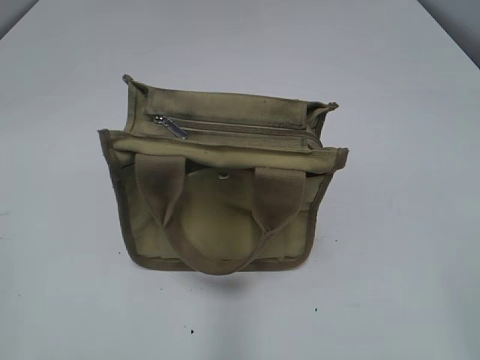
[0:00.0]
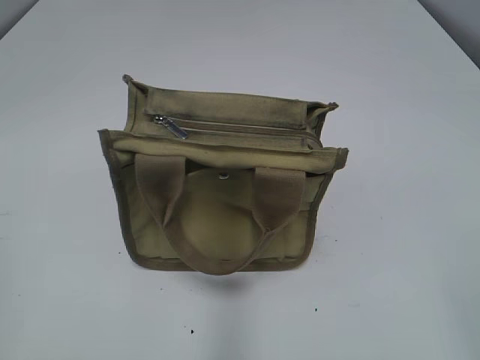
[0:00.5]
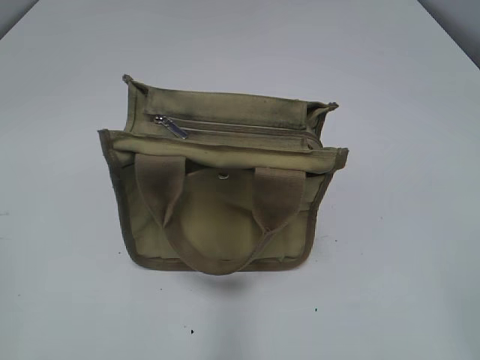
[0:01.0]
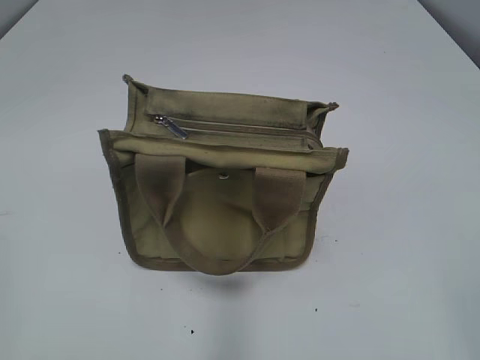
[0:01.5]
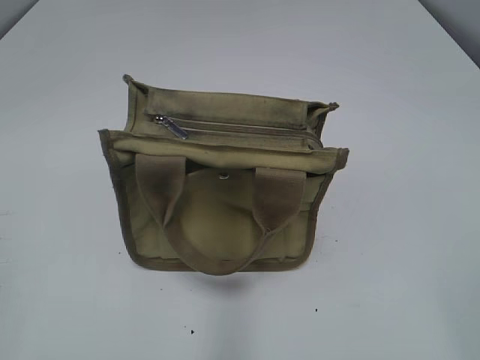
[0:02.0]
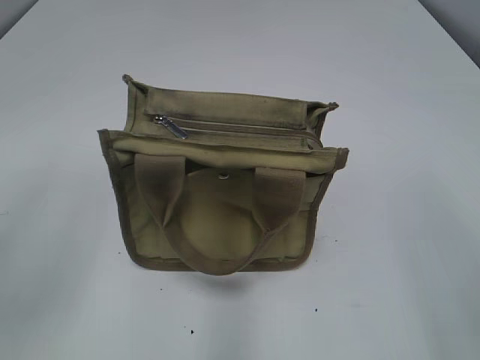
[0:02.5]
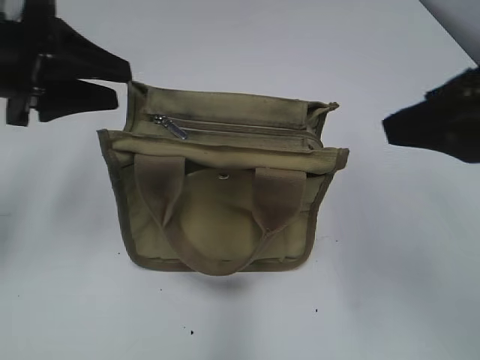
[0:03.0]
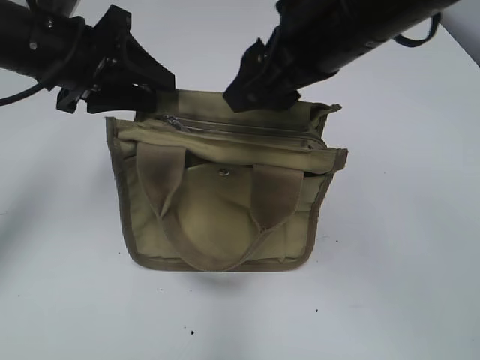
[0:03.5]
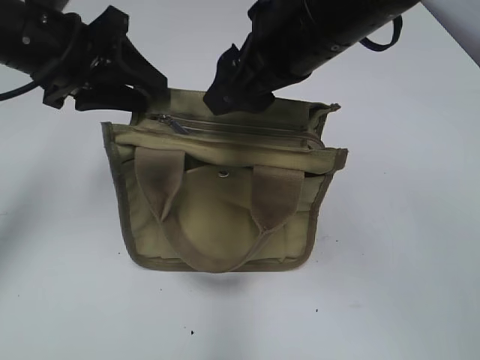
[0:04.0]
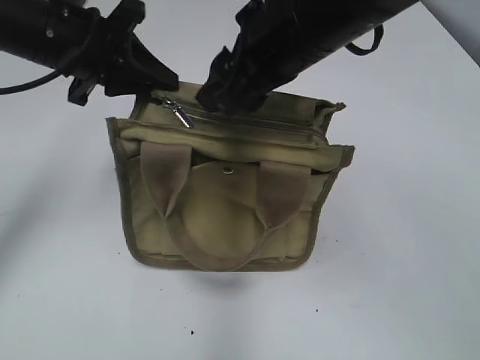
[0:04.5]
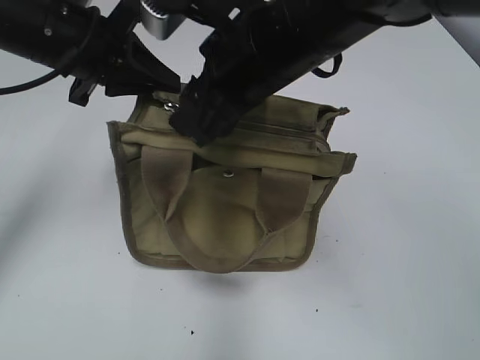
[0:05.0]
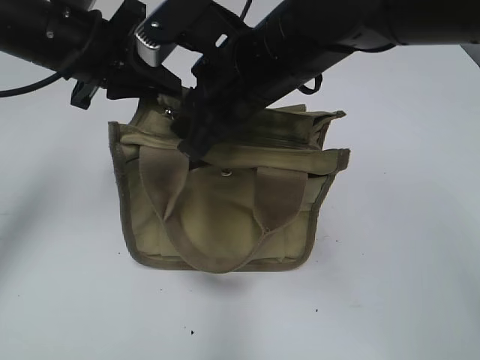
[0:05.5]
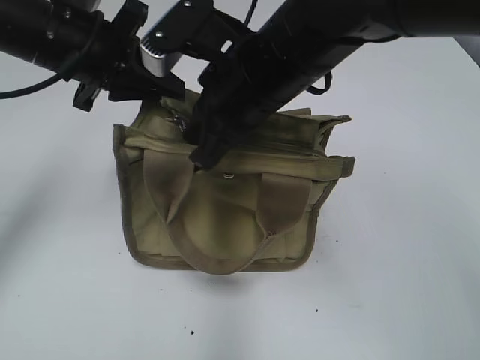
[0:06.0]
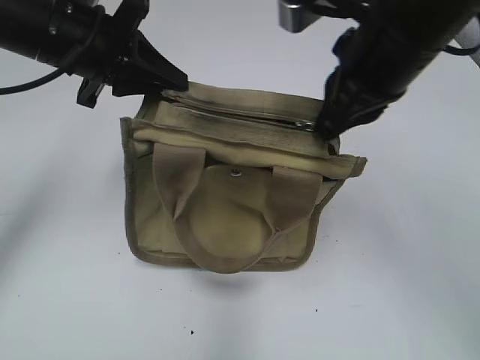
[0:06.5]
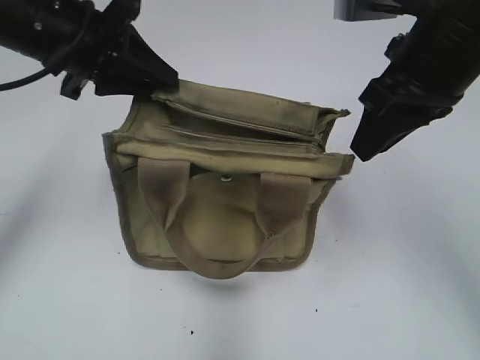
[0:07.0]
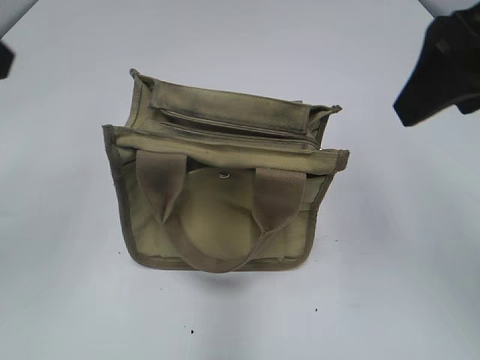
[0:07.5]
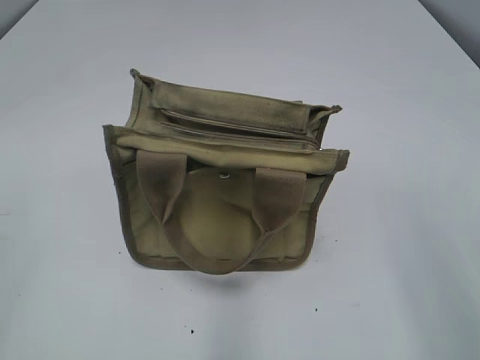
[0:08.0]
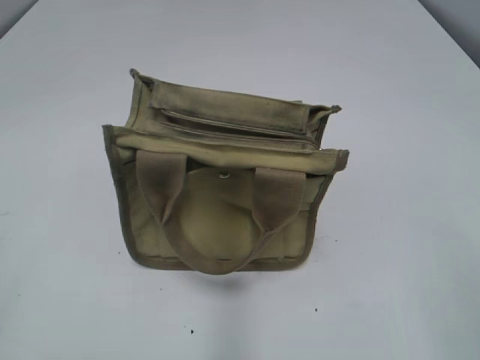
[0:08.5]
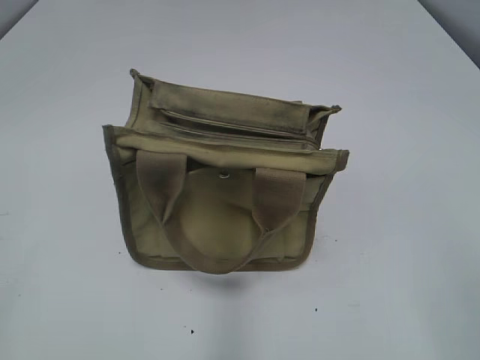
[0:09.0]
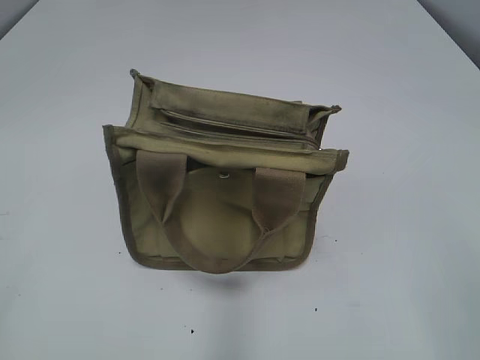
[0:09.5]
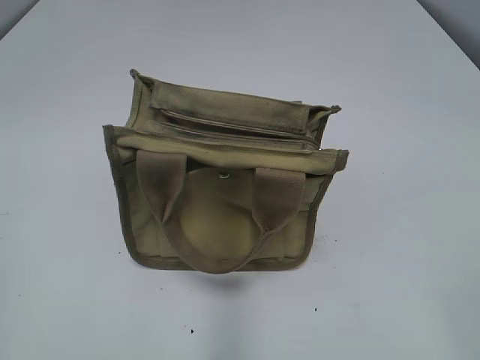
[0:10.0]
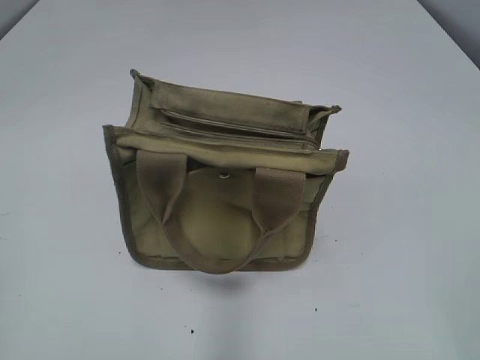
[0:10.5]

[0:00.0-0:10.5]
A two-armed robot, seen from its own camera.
Step, 0:00.0 to 0:06.5: Pull open the zipper with your right hand.
0:02.0 to 0:04.0: The right gripper travels forward and to the left by roughly 35 cm, while the left gripper moves forward and to the right, roughly 35 cm.
0:04.0 to 0:06.5: The right gripper travels to the right by roughly 5 cm, and closes up, while the left gripper closes.
0:06.5 to 0:08.5: The right gripper travels backward and to the right by roughly 30 cm, and opens up. The left gripper goes about 40 cm backward and to the left, and opens up.

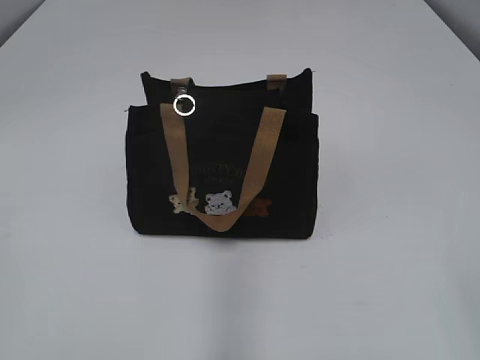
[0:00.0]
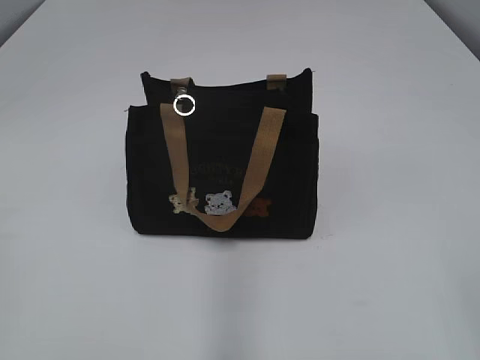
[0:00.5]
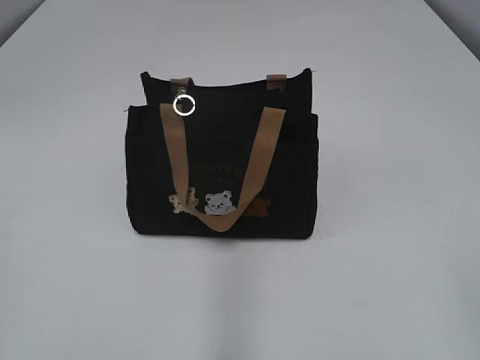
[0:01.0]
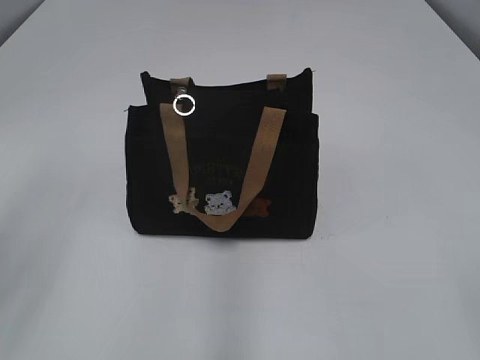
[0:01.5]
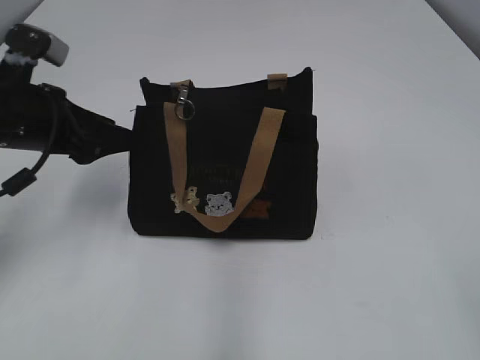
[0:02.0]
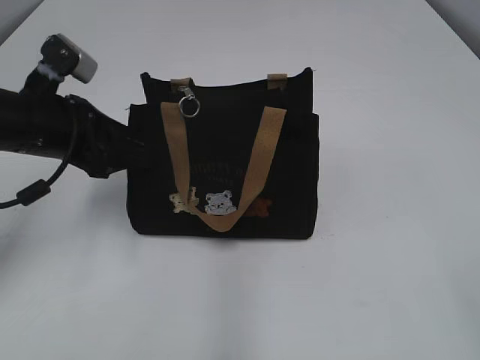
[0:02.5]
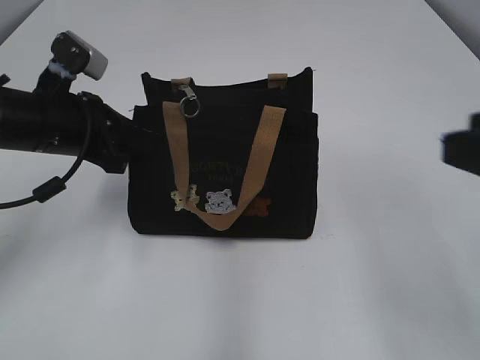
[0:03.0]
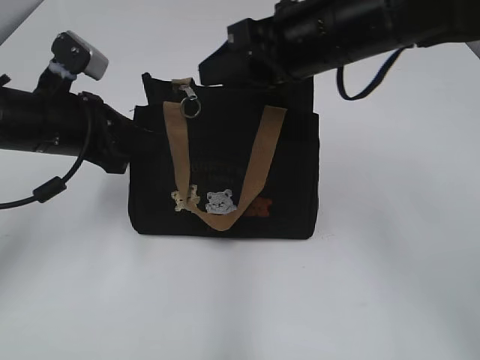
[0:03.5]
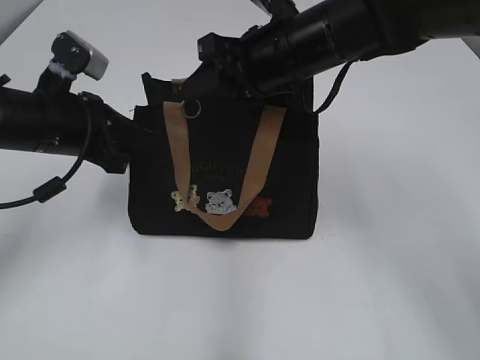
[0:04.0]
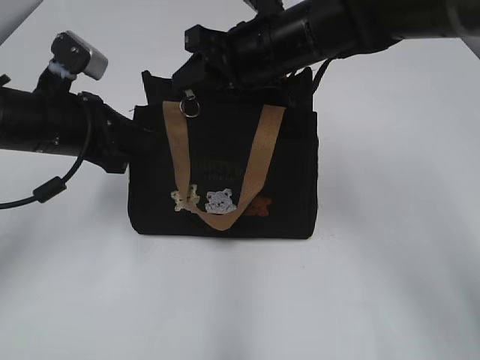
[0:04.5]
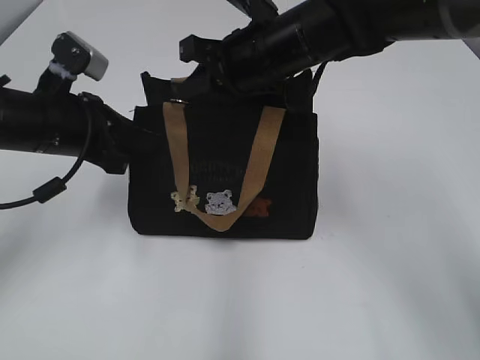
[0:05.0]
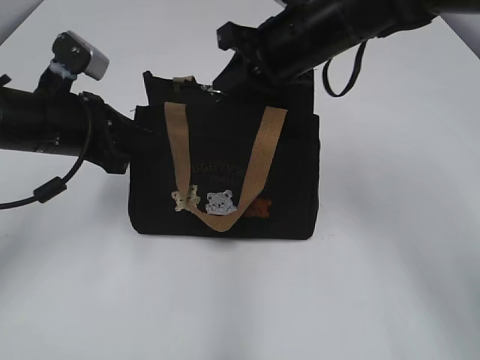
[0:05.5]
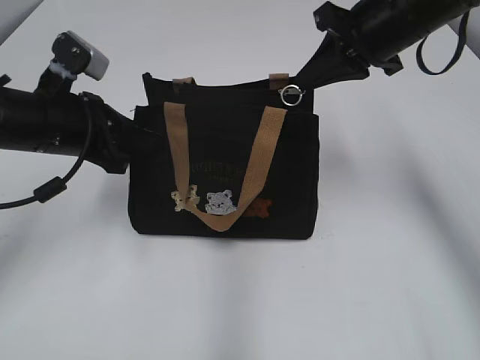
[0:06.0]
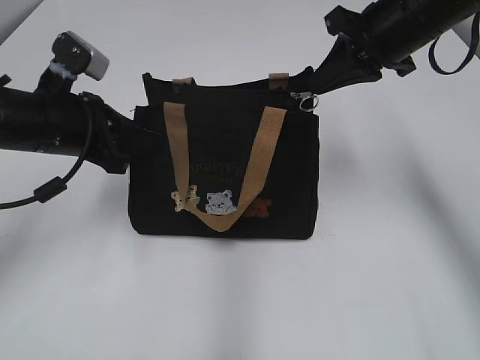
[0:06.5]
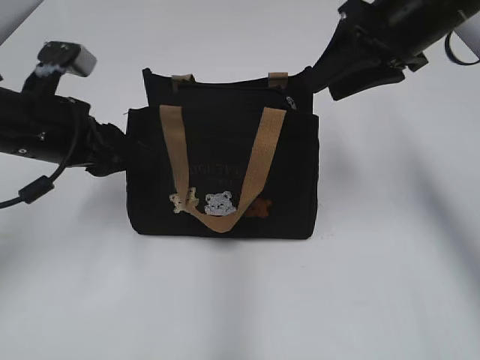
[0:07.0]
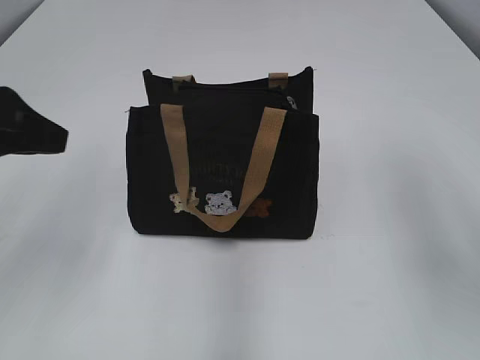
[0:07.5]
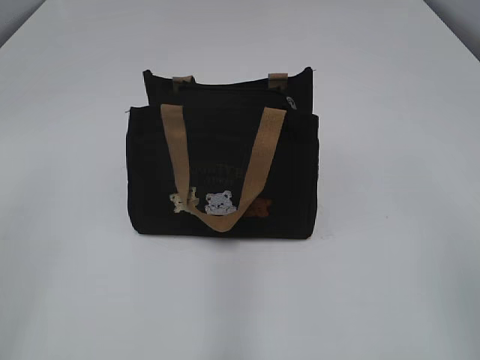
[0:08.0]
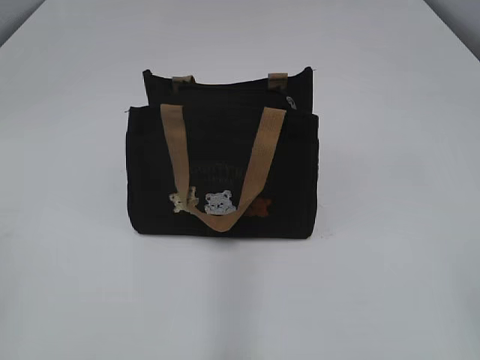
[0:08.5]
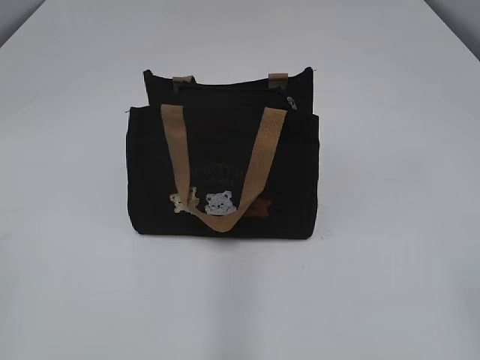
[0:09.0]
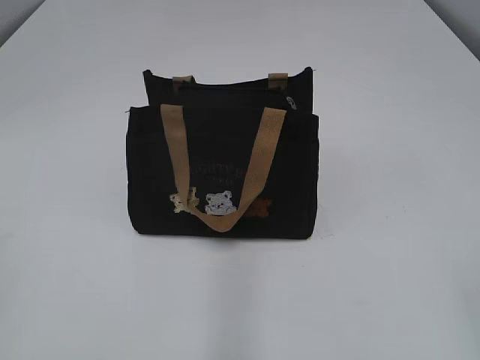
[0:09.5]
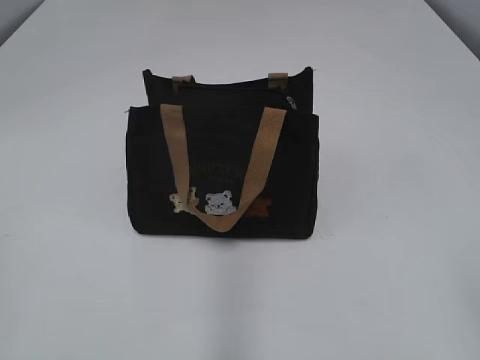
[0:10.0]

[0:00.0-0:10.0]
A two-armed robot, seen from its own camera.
Step, 0:00.0 to 0:06.5: Pull open the zipper with your right hand.
0:02.0 to 0:04.0: The right gripper moves forward and to the left, roughly 40 cm. The left gripper moves some 5 cm, and closes up.
0:04.0 to 0:06.0: The right gripper moves to the right, some 10 cm, and closes.
0:06.0 to 0:08.0: The right gripper heads backward, covering some 30 cm, and opens its fingers, while the left gripper moves backward and upward, roughly 25 cm, and opens up.

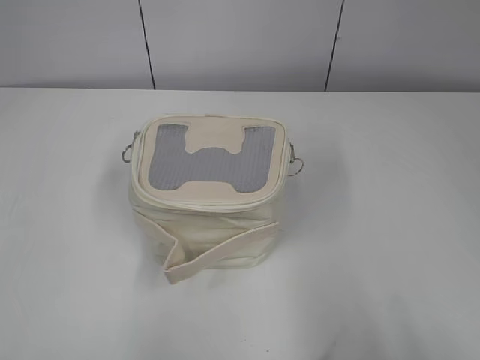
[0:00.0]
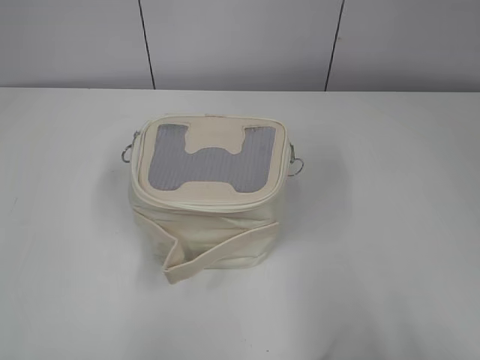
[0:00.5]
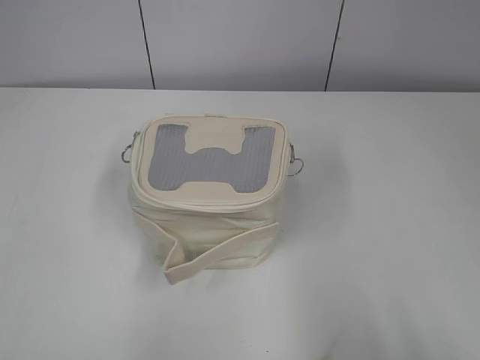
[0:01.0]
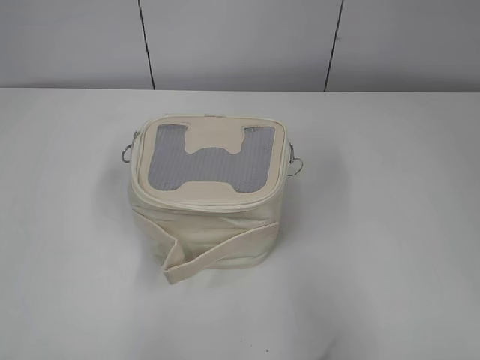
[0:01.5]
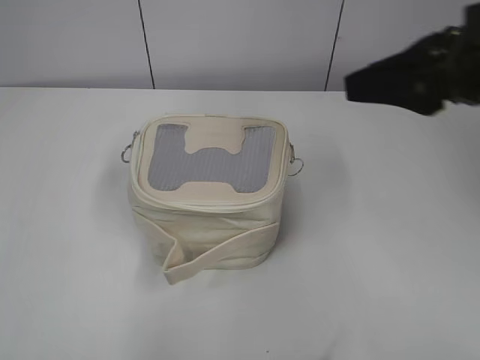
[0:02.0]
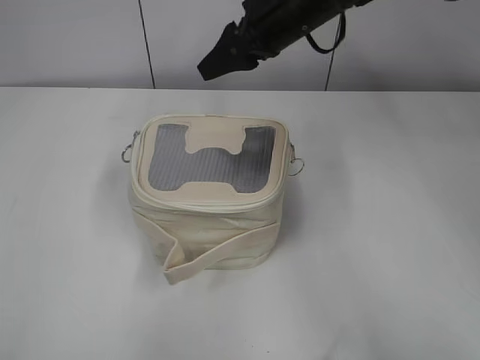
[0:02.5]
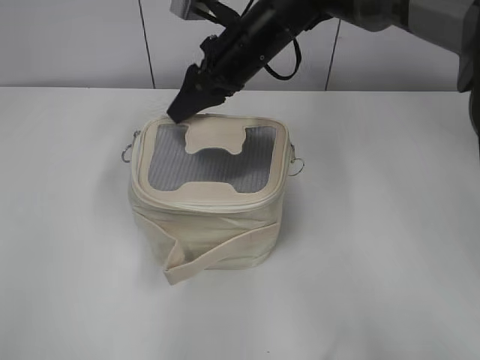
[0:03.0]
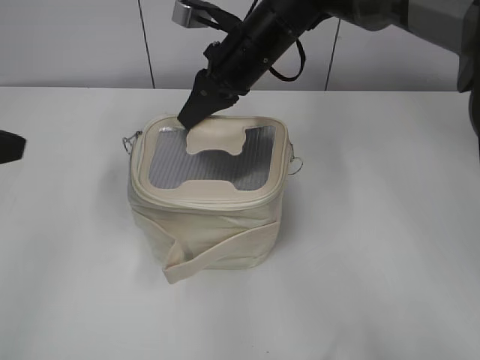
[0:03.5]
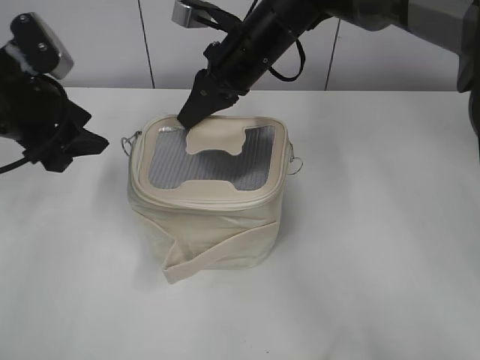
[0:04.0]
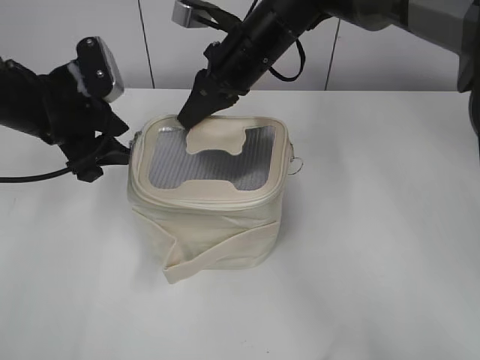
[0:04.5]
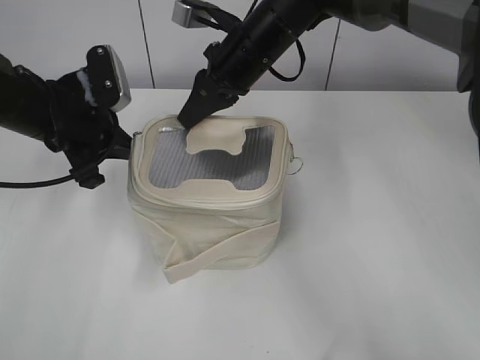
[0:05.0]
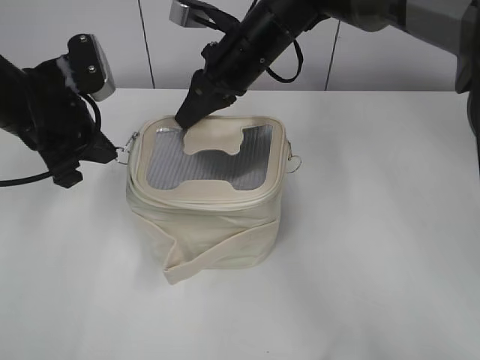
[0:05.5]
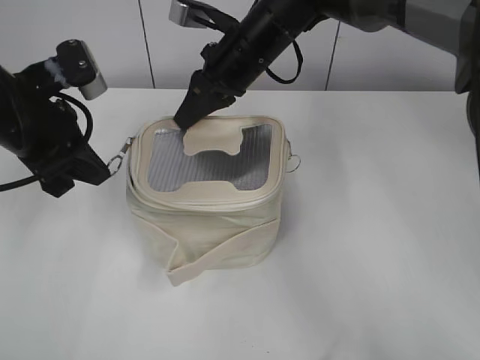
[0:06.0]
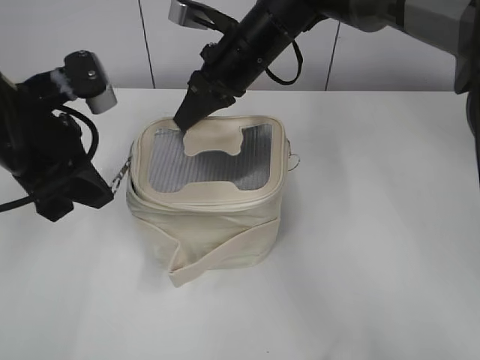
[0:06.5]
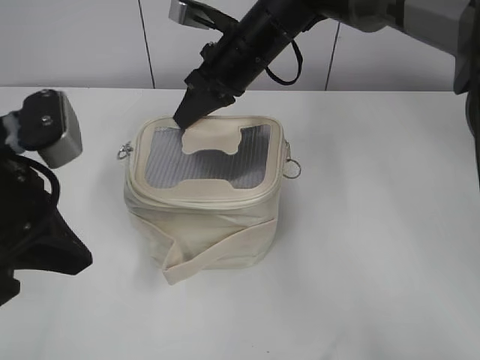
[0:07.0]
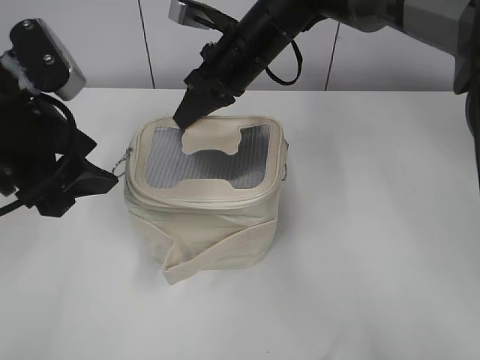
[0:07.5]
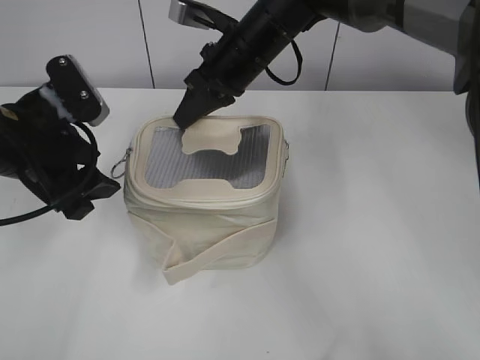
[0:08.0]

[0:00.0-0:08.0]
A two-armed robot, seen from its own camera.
0:02.0 to 0:04.0: The right gripper shifts roughly 30 cm forward, to the left and downward, and closes up; the left gripper heads forward, covering some 30 cm, and opens.
0:04.0 to 0:06.0: The left gripper closes up.
0:06.0 to 0:08.0: The left gripper moves some 10 cm backward and comes back, and opens its fingers.
